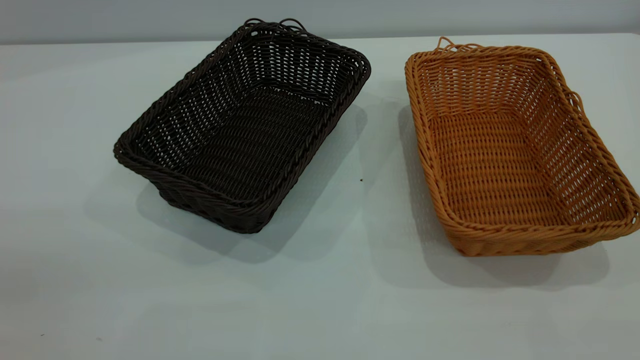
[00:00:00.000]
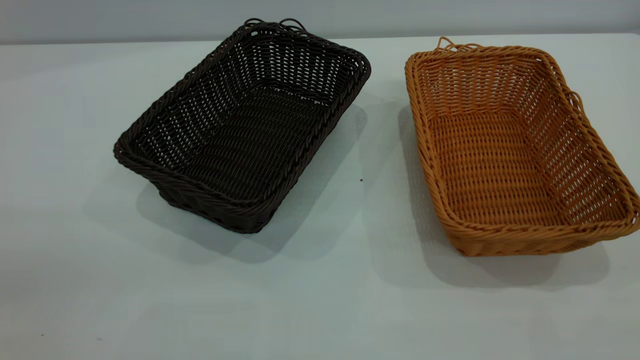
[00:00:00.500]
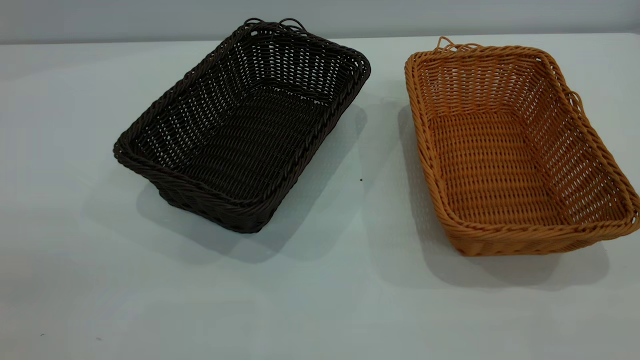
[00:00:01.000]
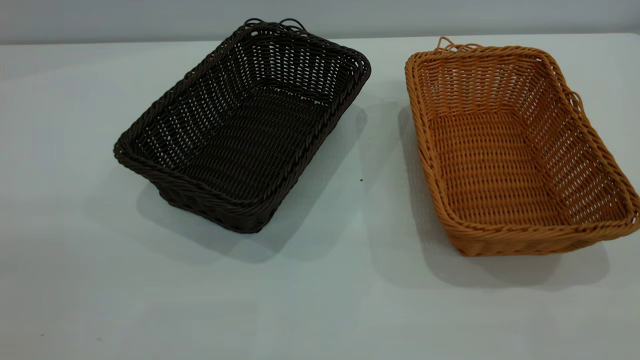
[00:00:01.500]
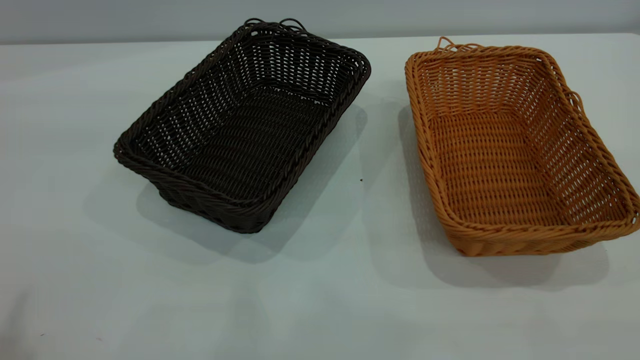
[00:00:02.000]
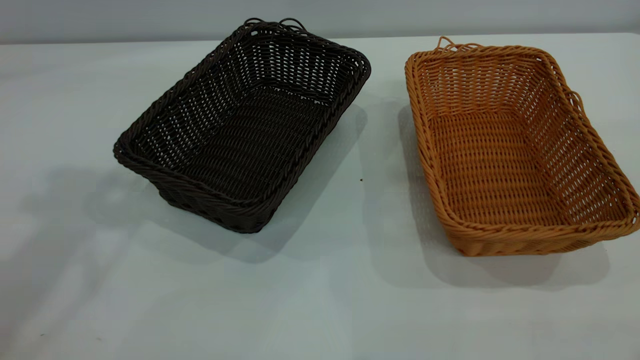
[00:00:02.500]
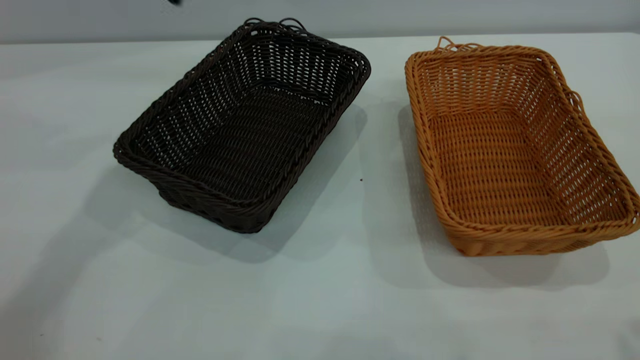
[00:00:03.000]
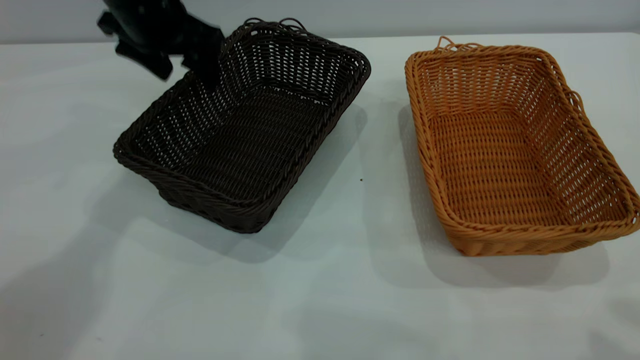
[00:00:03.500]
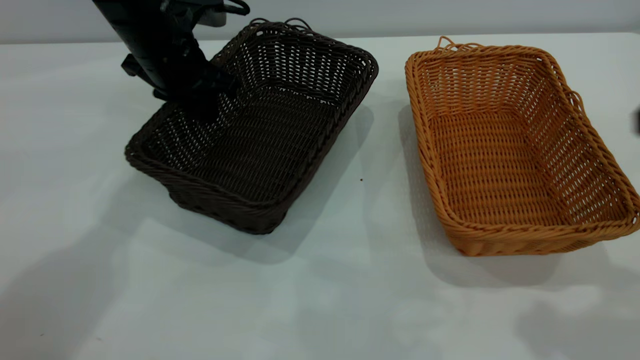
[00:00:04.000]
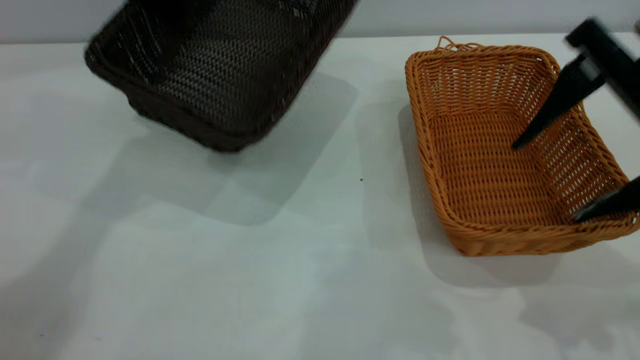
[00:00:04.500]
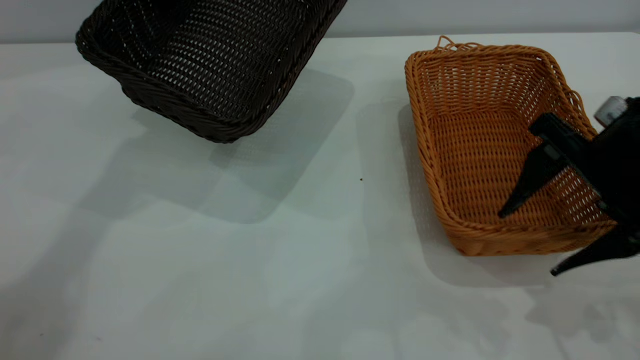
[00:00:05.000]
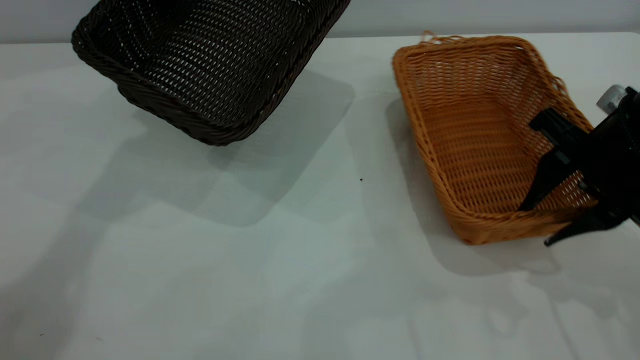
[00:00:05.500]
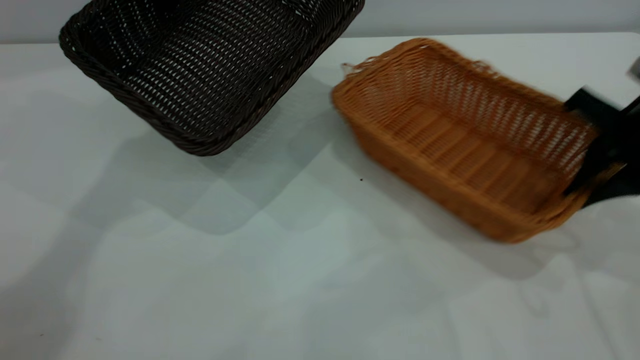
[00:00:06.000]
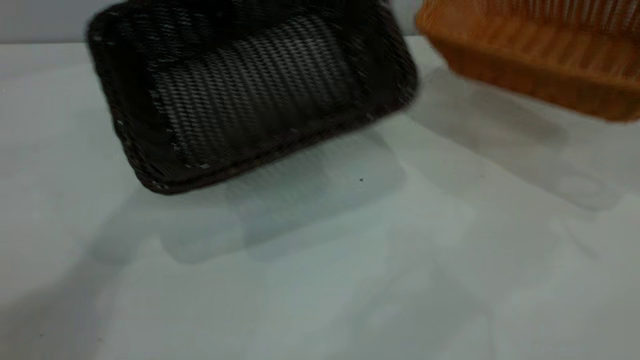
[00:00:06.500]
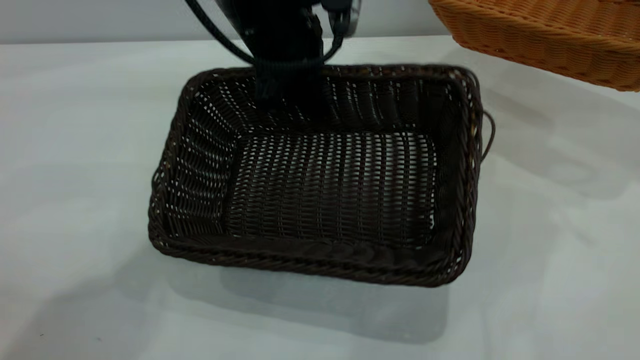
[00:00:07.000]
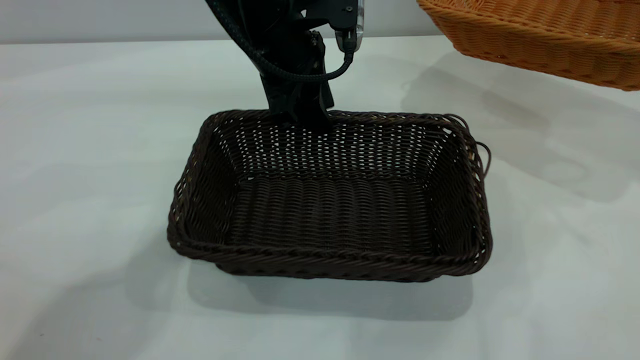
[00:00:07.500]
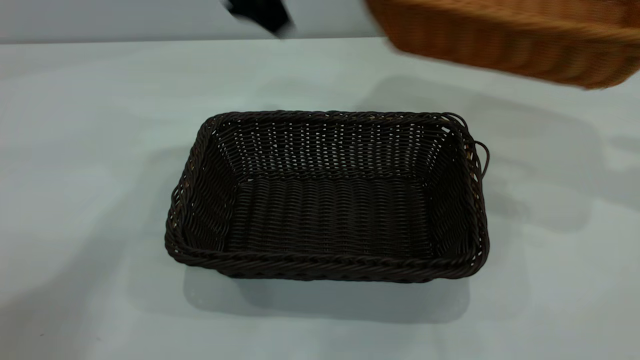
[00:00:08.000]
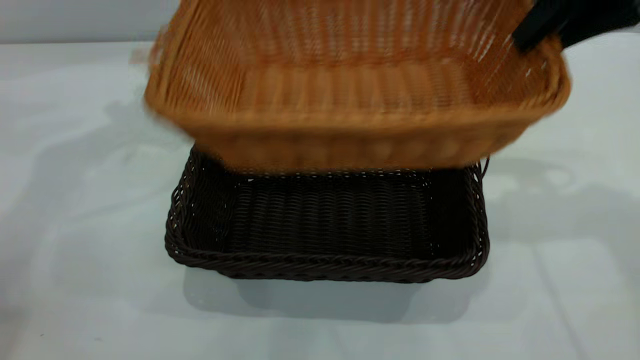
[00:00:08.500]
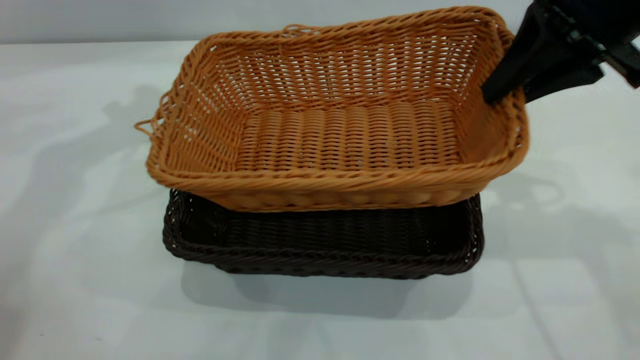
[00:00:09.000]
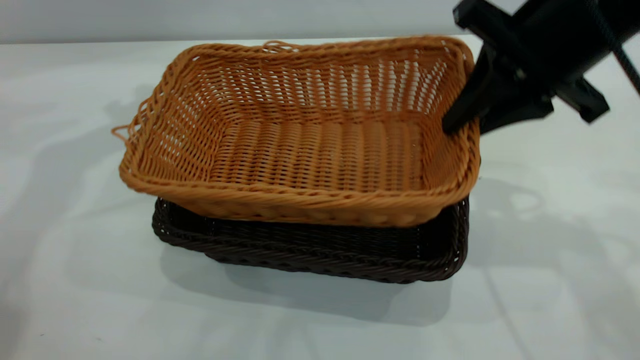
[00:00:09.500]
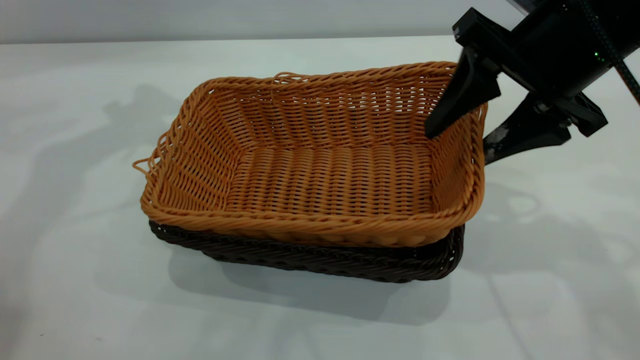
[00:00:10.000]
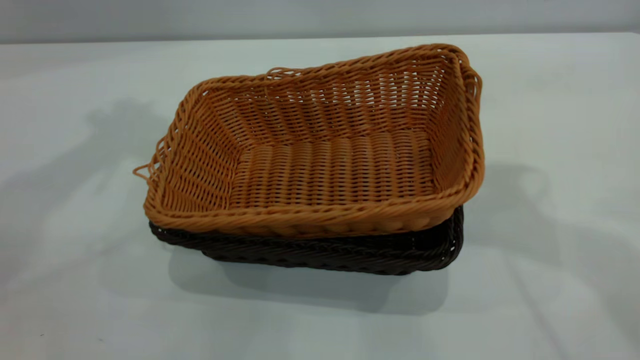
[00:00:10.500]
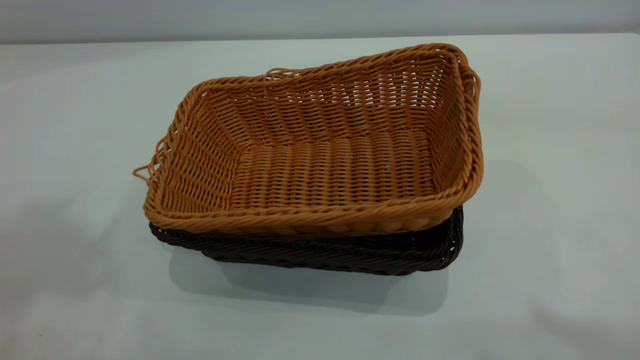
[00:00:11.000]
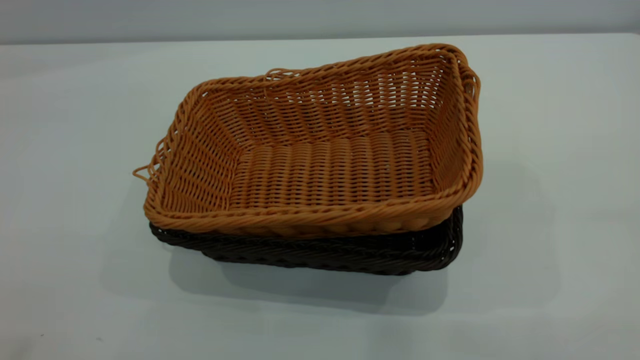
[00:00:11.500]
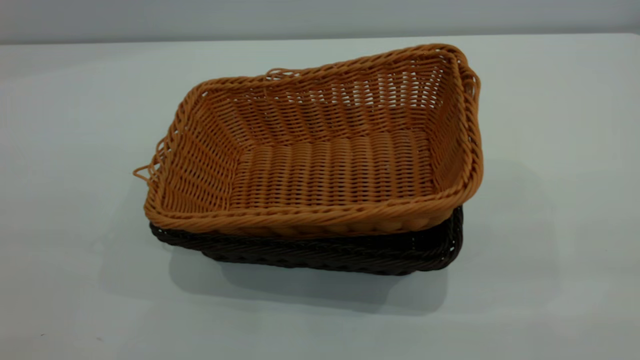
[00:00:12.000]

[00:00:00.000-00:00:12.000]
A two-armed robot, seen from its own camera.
Task of the whole recording: the left gripper grasp the black basket and place it in the center of the table, the right gripper grasp the brown basket and place it inside the black one.
Step, 00:00:00.000 to 00:00:06.000: Pick up the light basket with the right gripper.
Step, 00:00:06.500 to 00:00:07.500: Move the dark basket to the center of view.
Step, 00:00:08.000 to 00:00:10.000: Place the light basket on the dark basket.
00:00:02.000 to 00:00:04.000: The right gripper heads forward and downward, covering some 20 cm. Meanwhile the left gripper moves forward, downward and to the right, about 40 cm, and closes its fingers.
00:00:04.000 to 00:00:06.000: The right gripper travels downward and forward by approximately 20 cm, and closes; the left gripper heads upward, covering about 10 cm.
00:00:06.000 to 00:00:08.000: The right gripper shifts some 15 cm upward and to the right. Meanwhile the left gripper opens up.
00:00:08.000 to 00:00:10.000: The right gripper moves to the left and downward, approximately 20 cm, and opens its fingers. Meanwhile the left gripper is displaced to the left by approximately 10 cm.
00:00:10.000 to 00:00:12.000: The right gripper shifts about 35 cm backward and upward. Meanwhile the left gripper heads backward, covering some 50 cm.
